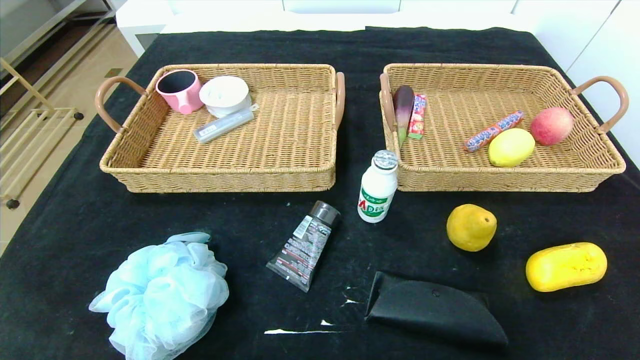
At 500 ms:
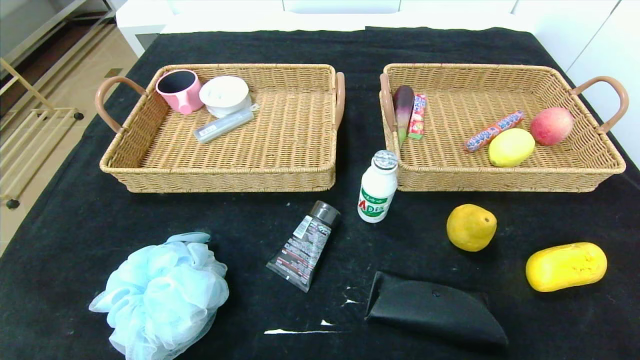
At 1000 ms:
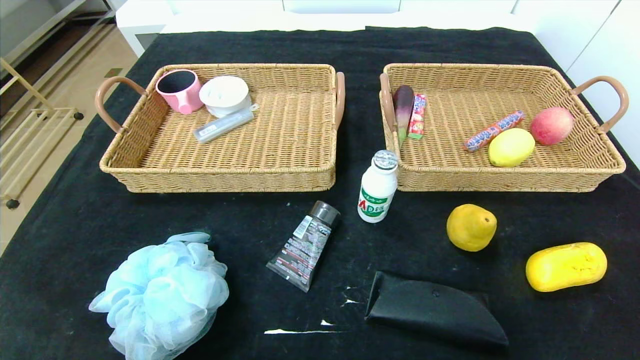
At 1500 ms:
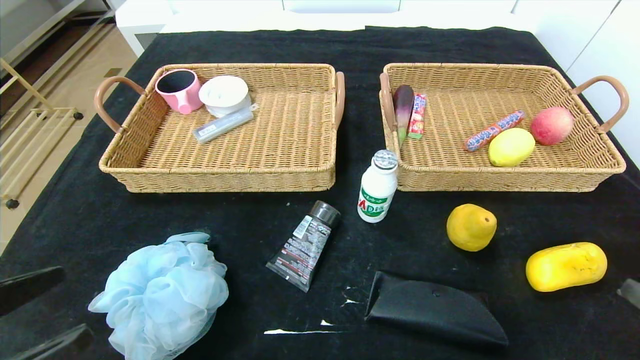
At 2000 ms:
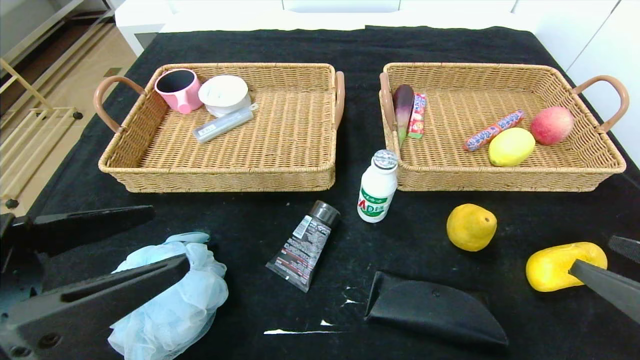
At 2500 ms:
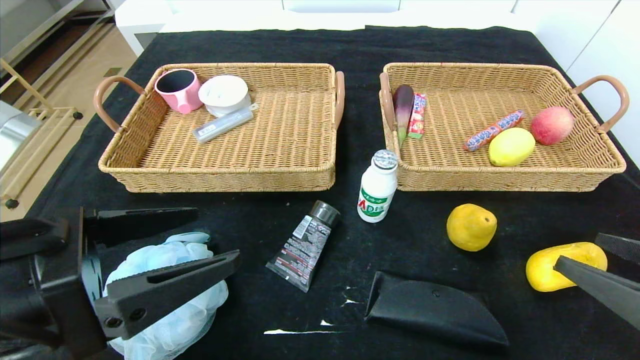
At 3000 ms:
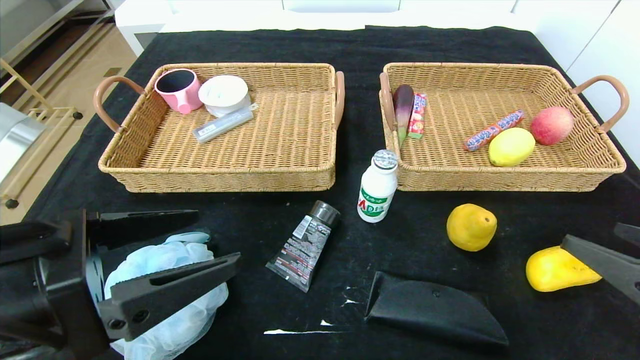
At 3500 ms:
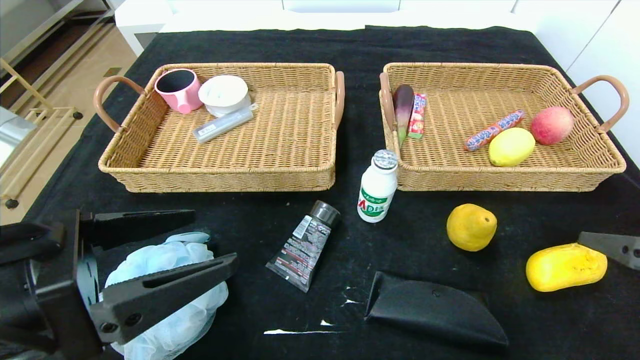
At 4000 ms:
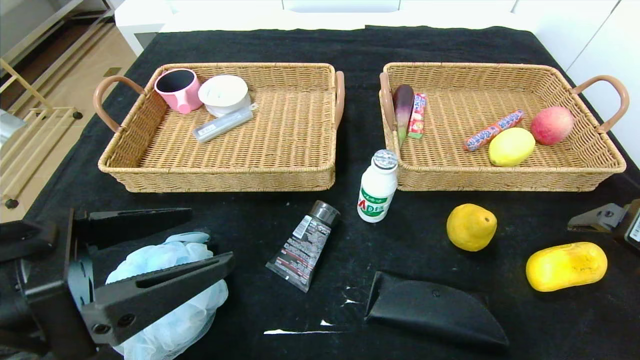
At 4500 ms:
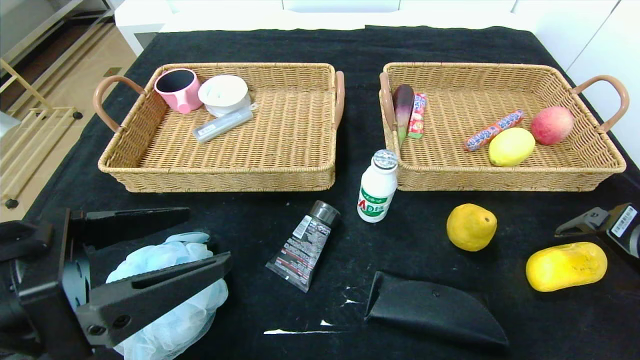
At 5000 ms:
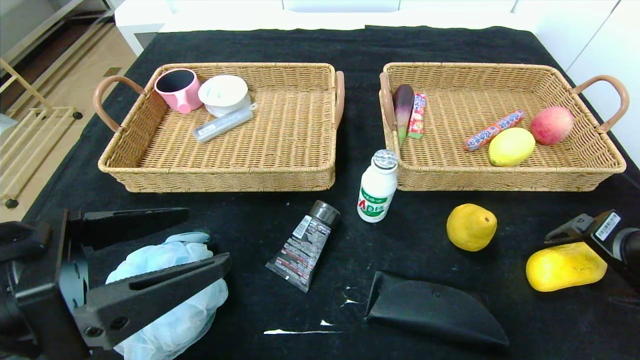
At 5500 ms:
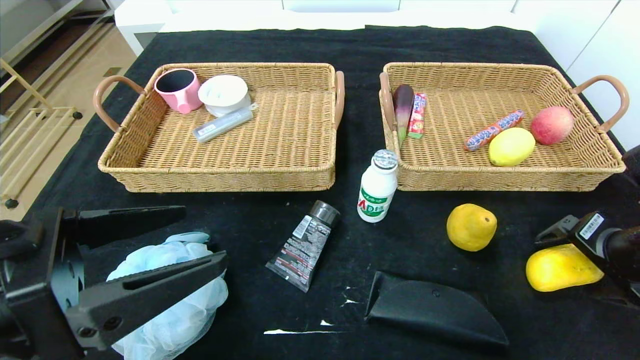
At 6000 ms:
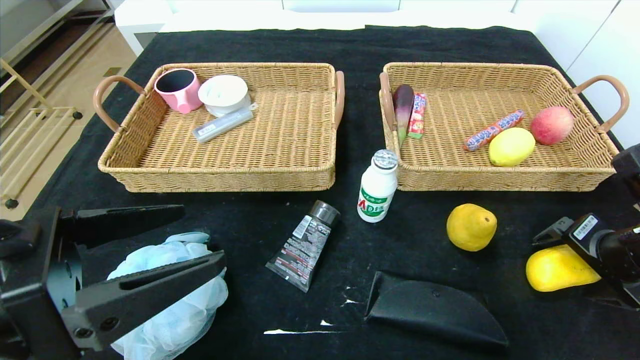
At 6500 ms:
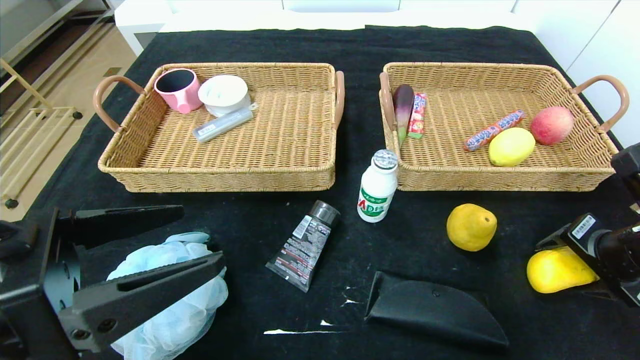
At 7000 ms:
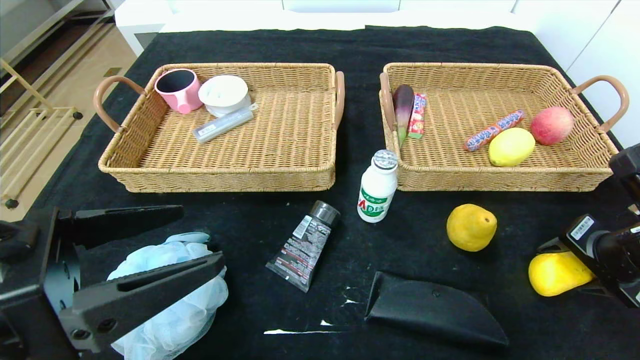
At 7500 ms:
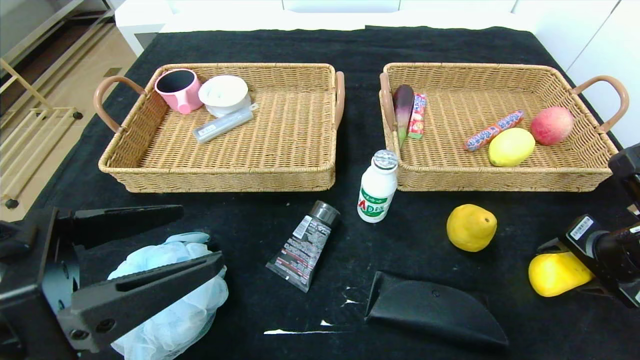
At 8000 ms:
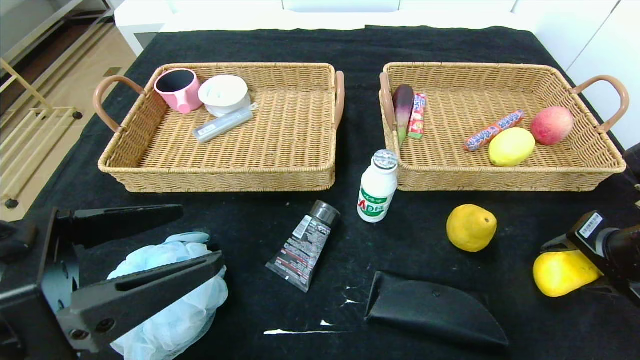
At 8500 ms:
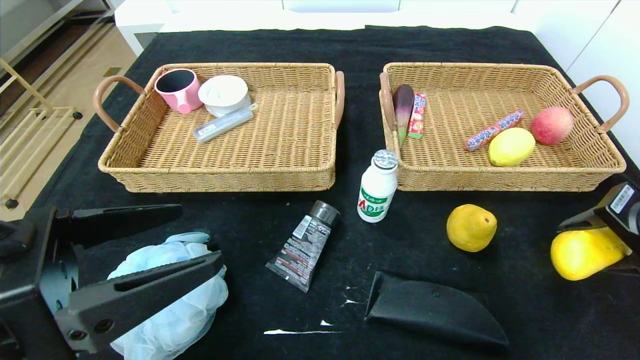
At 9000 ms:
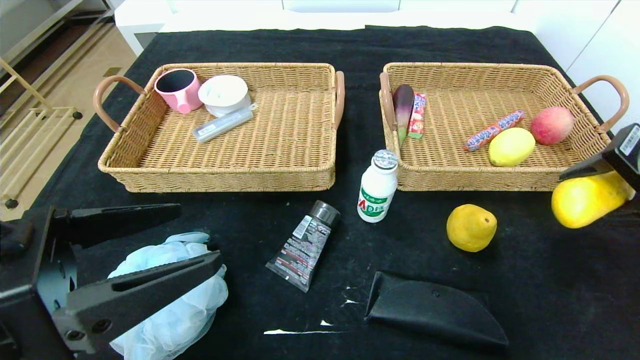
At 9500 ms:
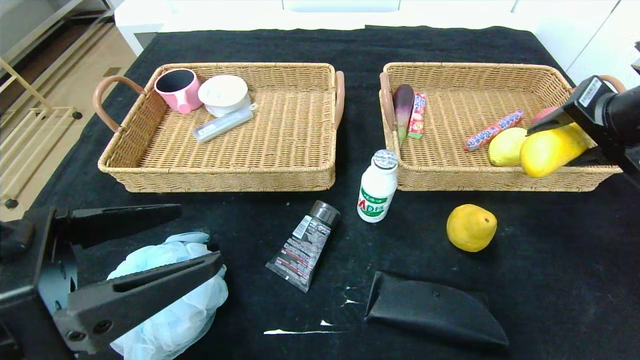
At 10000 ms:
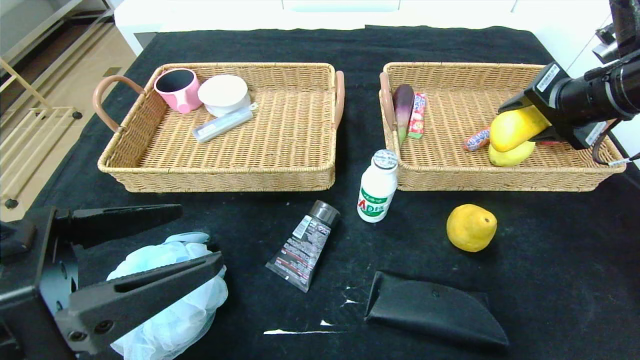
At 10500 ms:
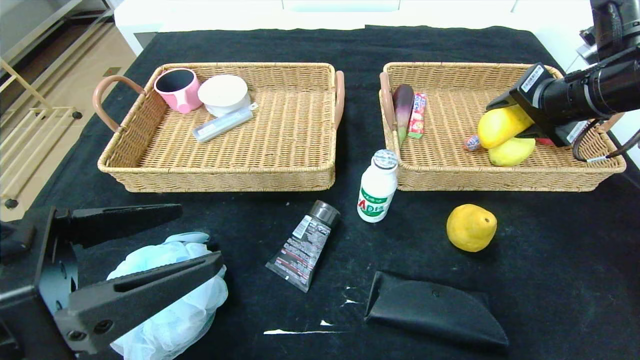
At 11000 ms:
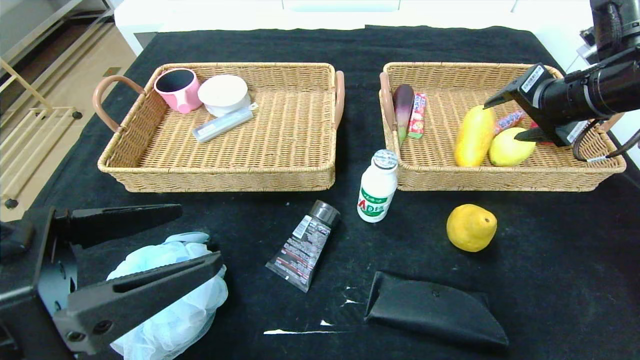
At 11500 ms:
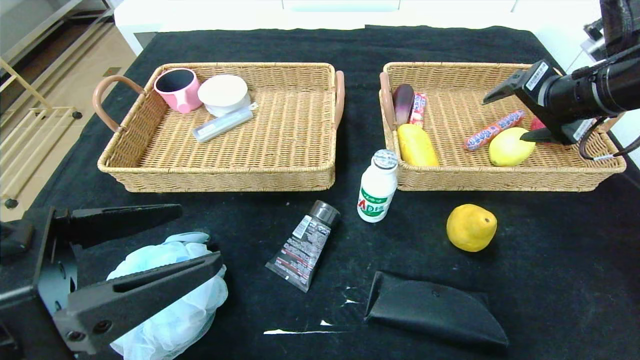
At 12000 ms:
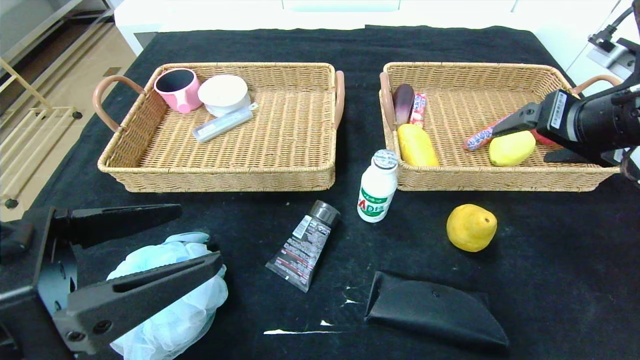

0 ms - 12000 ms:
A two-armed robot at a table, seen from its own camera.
Step, 0 ms - 11000 ms: Grasp the mango and put it in the right basket.
0 ms - 2000 ms: The right gripper is displaced forward and upward by about 10 cm. The left gripper moves forward, upward and to the right, roughly 20 cm.
2000 ms - 4000 ms: The right gripper goes about 10 cm forward.
4000 ms - 6000 ms: The right gripper travels forward by about 5 cm.
6000 ms - 8000 ms: The right gripper closes its fingers.
8000 ms - 10000 ms: The right gripper travels upward and forward by some 15 cm.
10000 ms - 12000 ms: The right gripper ends up roughly 5 cm from where it was, and opens.

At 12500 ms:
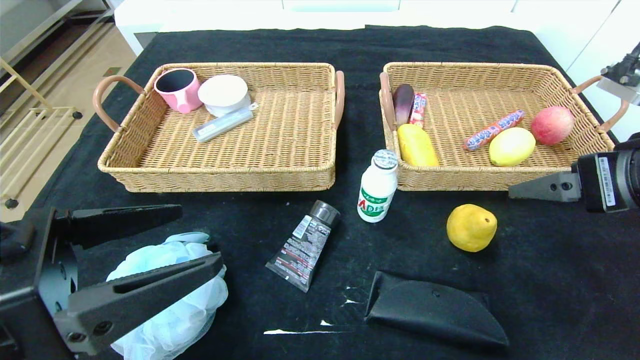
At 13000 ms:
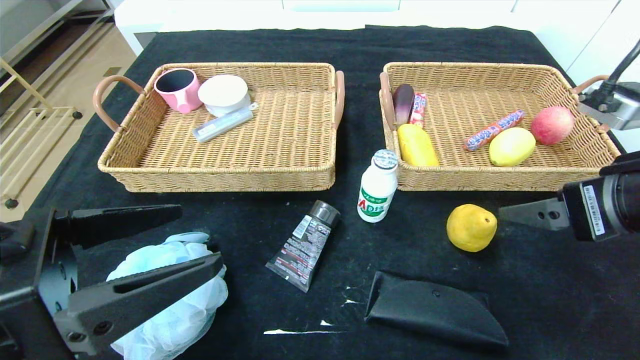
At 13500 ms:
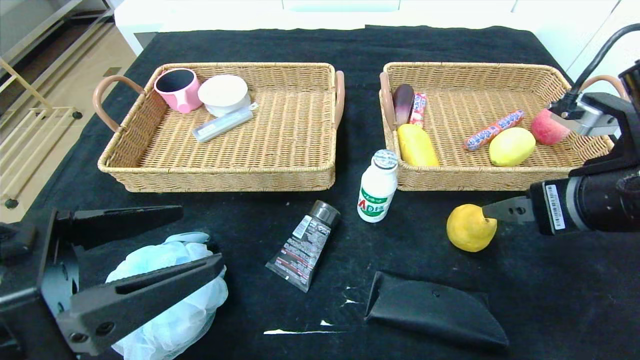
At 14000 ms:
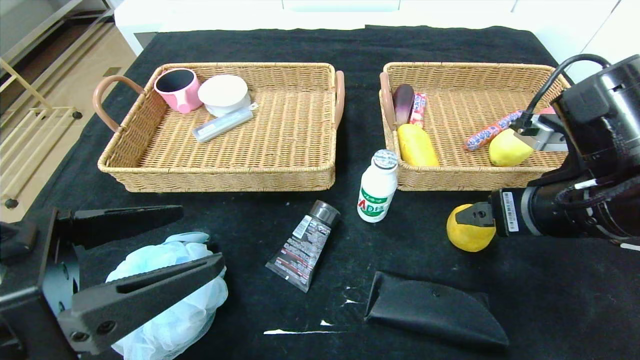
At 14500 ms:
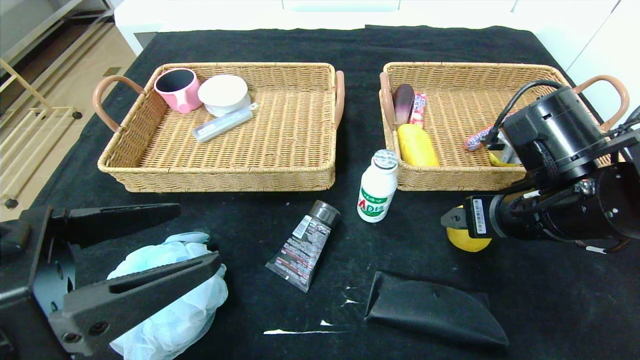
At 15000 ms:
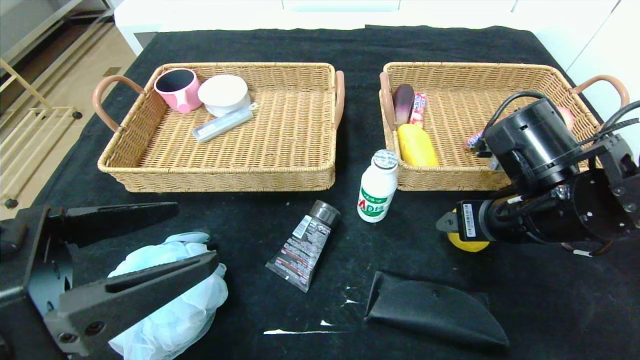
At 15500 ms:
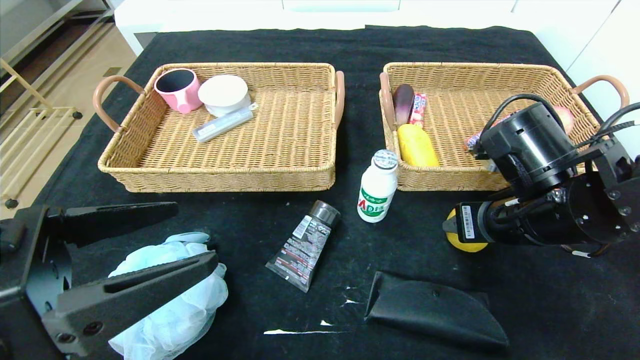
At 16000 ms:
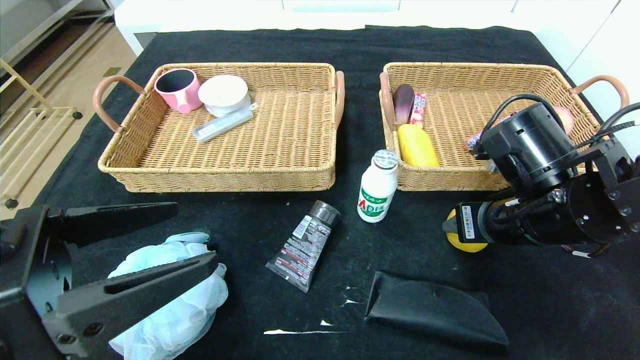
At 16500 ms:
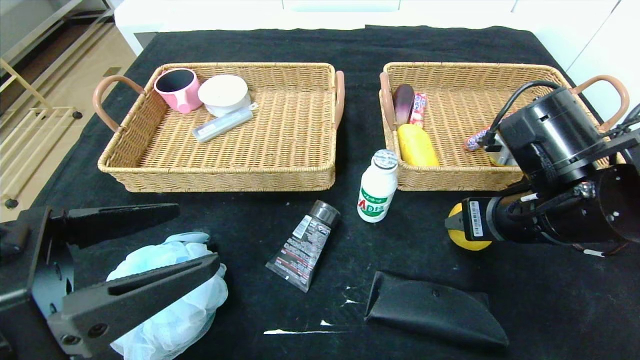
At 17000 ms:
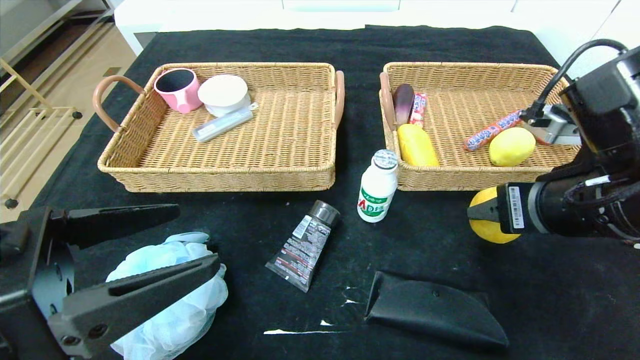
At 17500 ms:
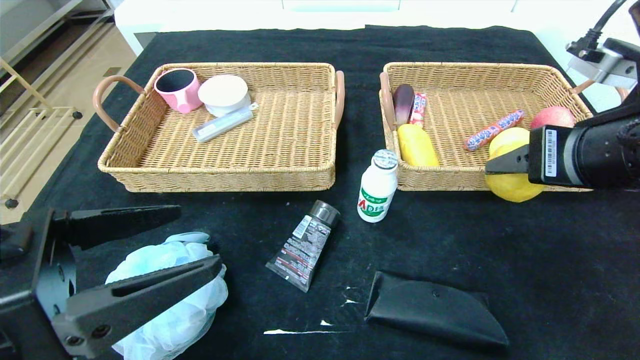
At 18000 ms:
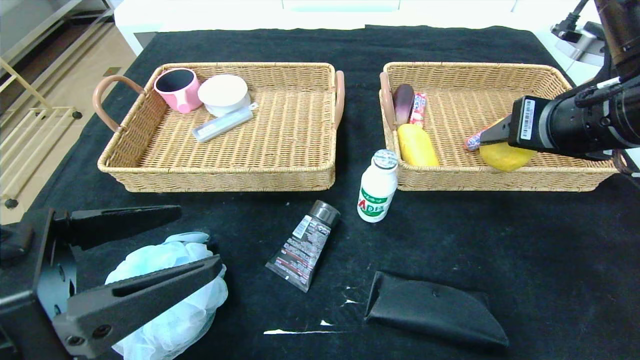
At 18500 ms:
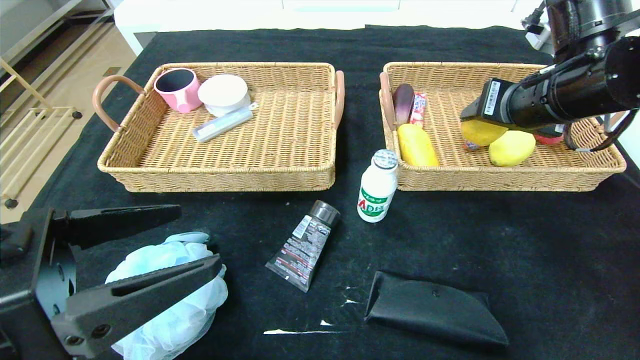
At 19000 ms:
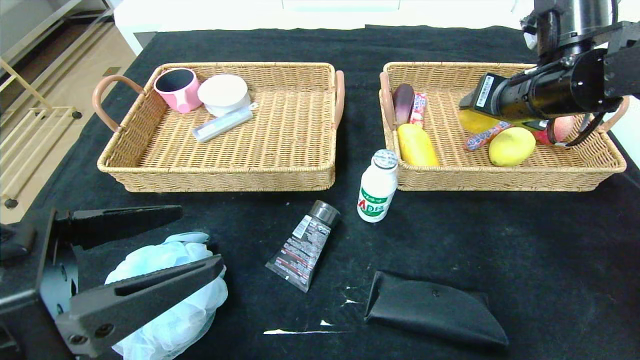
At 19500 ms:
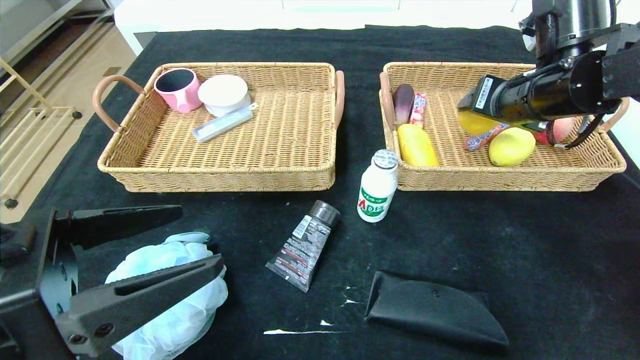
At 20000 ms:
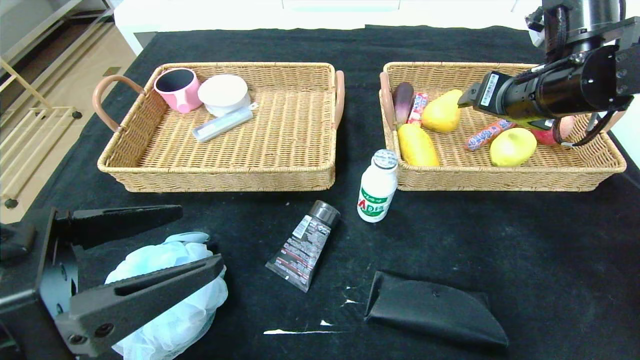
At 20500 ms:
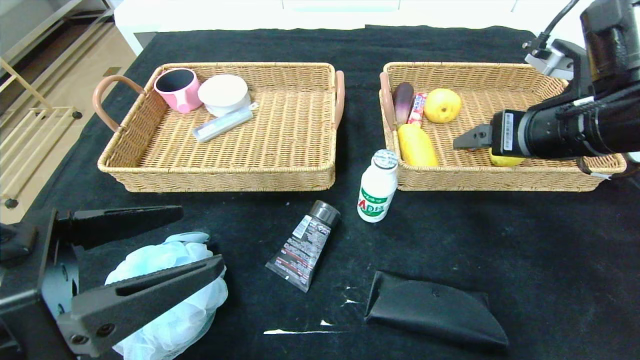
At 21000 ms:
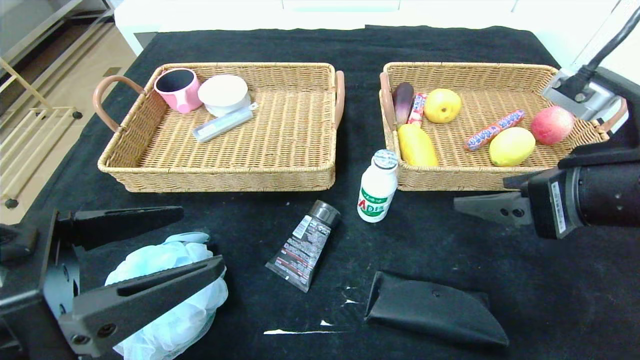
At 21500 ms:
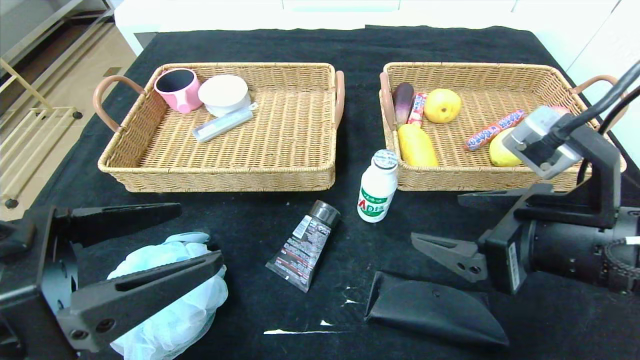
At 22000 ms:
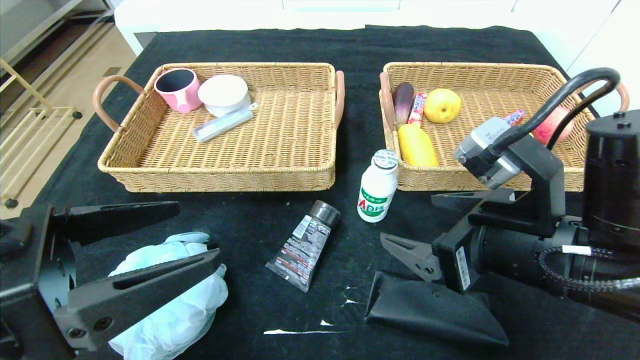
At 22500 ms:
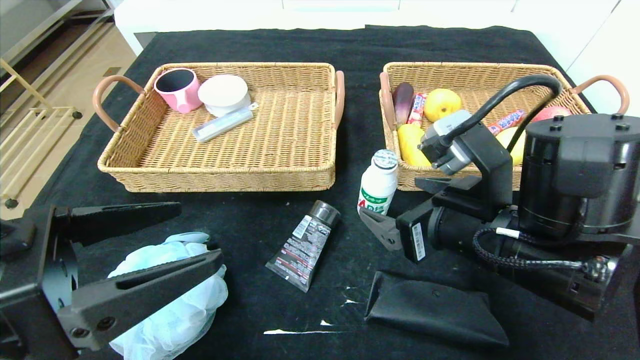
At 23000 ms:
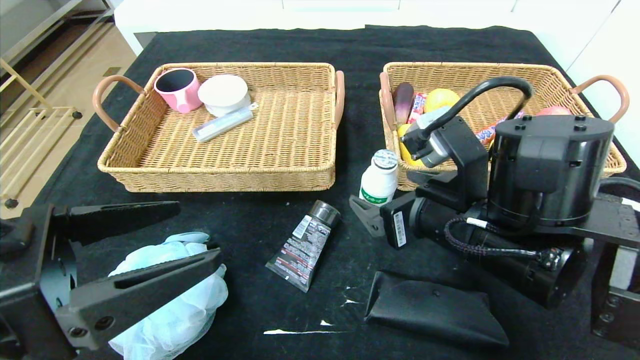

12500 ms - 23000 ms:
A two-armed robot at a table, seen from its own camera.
Step, 12500 ms - 19500 ms: Grasp the pear and put it in the right basket.
12500 ms - 14500 ms: The right gripper heads to the left, downward and forward, covering roughly 10 cm.
14500 ms - 16500 ms: The right gripper closes up.
16500 ms - 19000 ms: The right gripper moves forward and upward, approximately 15 cm.
19000 ms - 21000 ms: The right gripper moves backward, about 15 cm, and opens.
21000 ms - 23000 ms: The right gripper heads to the left and downward, covering roughly 10 cm.
